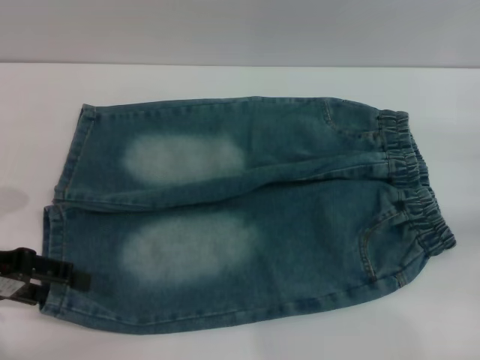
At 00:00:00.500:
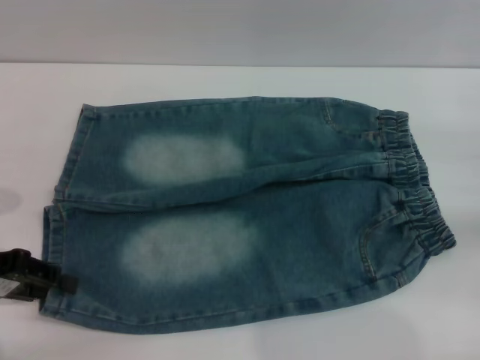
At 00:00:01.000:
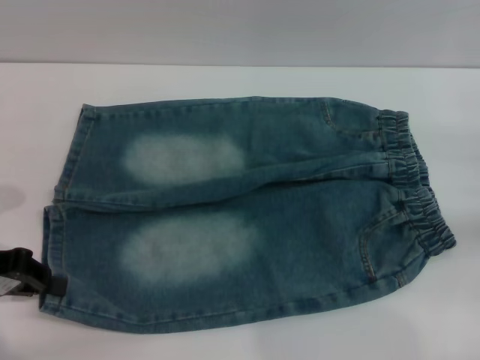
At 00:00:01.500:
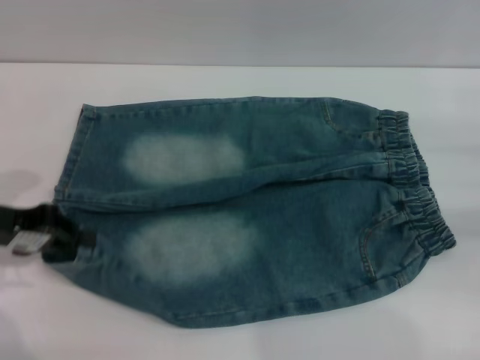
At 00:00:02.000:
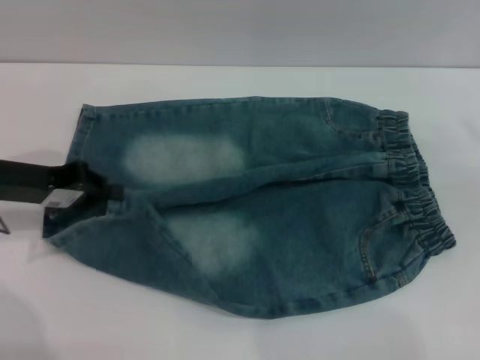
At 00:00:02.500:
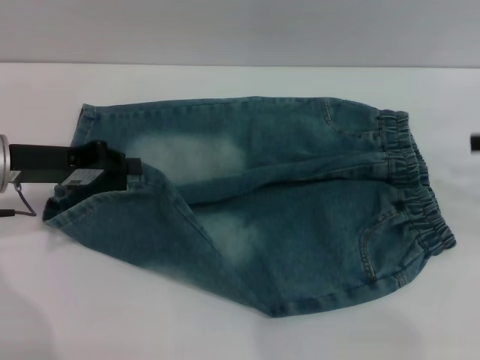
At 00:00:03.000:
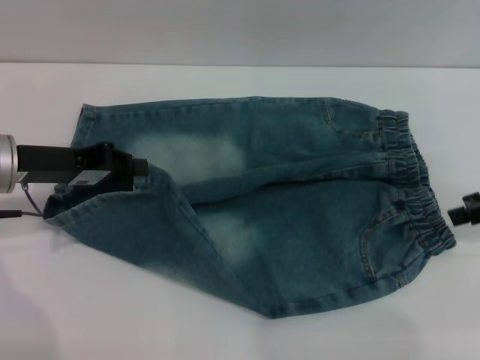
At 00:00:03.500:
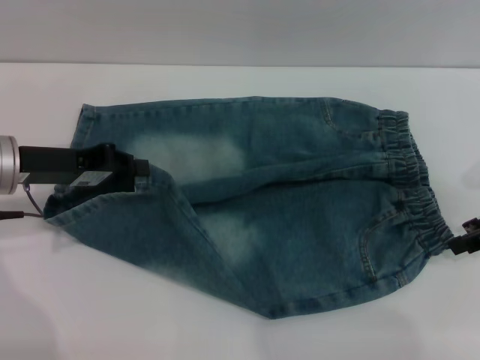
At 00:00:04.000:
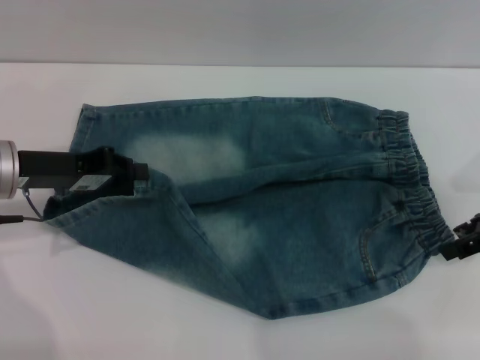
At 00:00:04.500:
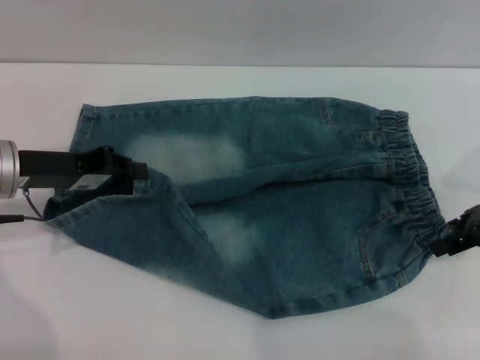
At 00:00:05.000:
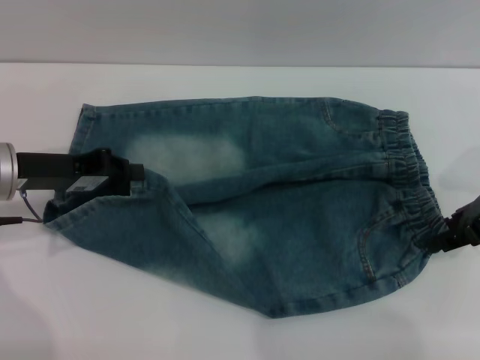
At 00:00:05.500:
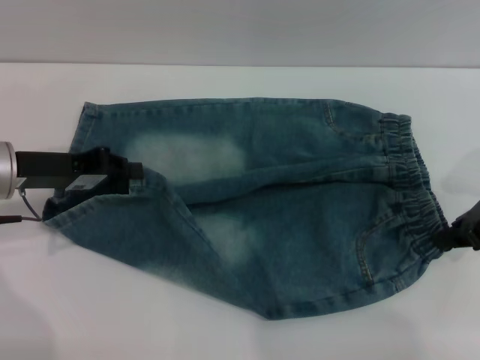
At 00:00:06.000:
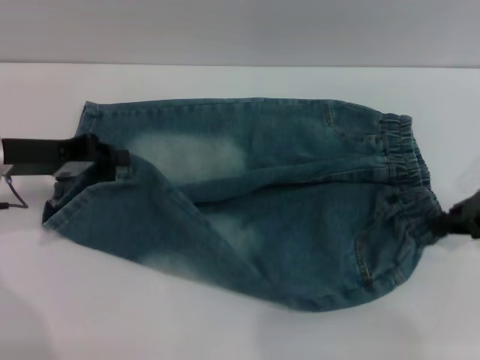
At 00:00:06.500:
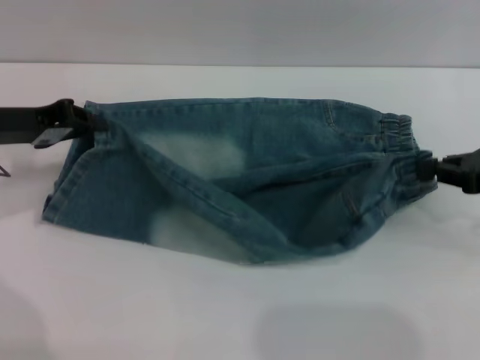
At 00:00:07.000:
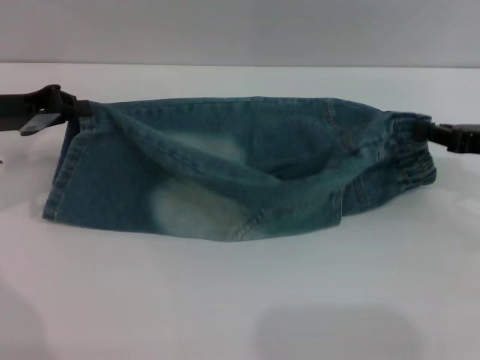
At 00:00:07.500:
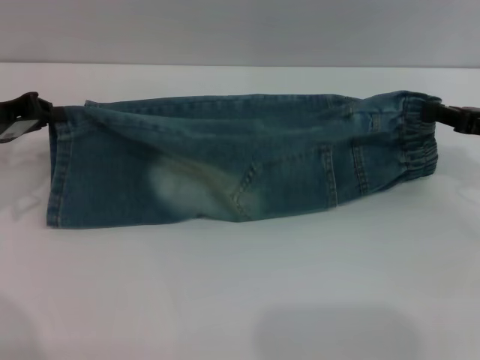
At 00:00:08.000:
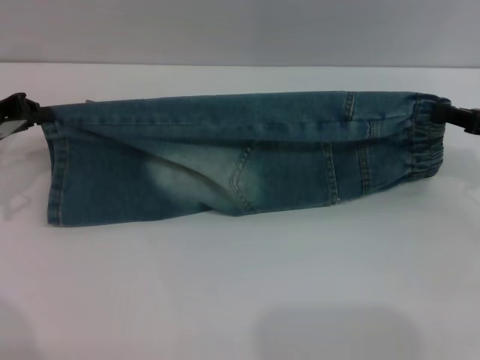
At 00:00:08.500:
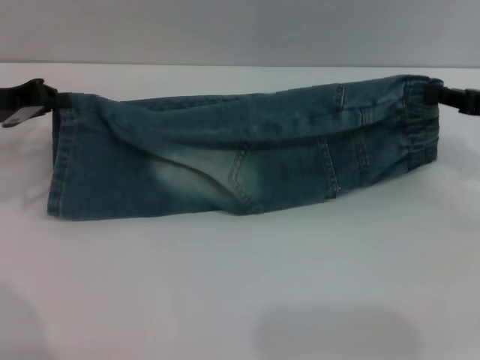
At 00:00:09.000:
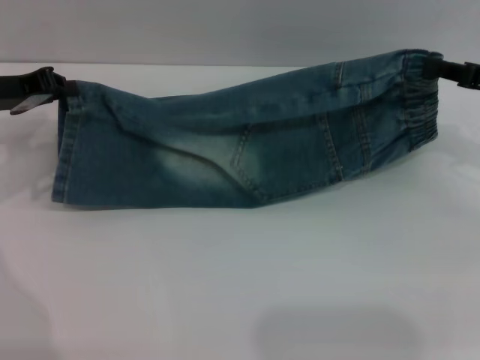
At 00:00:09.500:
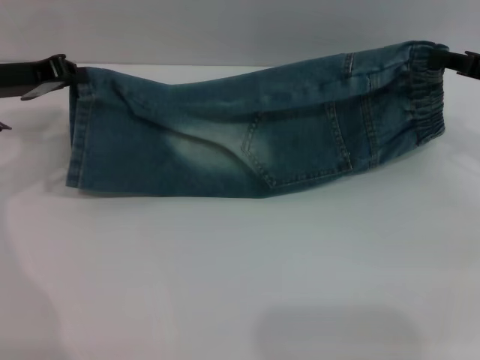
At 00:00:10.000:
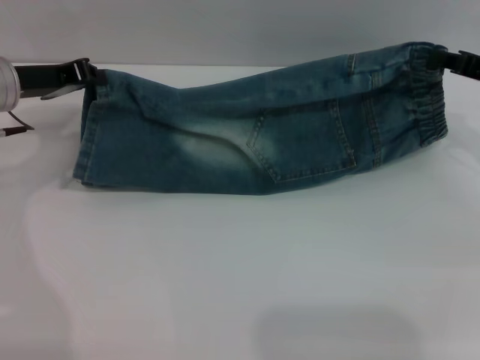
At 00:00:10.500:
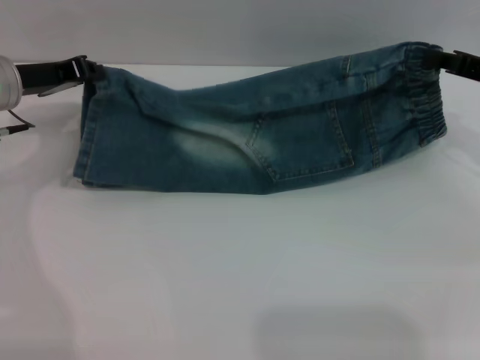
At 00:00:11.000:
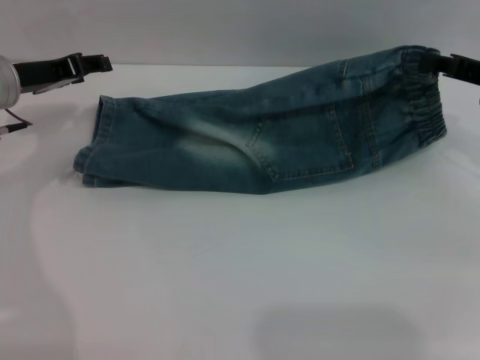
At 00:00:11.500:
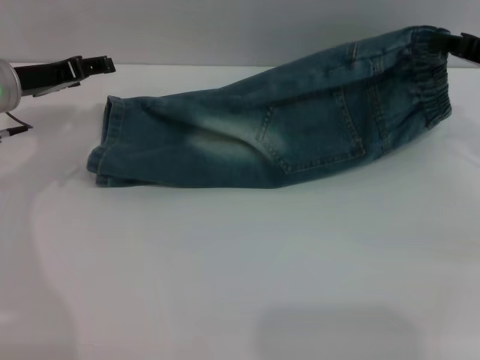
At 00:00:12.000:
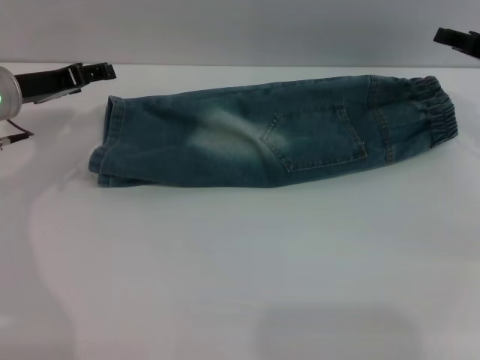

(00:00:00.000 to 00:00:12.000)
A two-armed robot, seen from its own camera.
Step, 00:00:00.000 - 00:00:10.500: Fold the bottom of the pants upward with both grippers.
00:00:00.000 - 00:00:02.000: The right gripper moves upward, about 10 cm. The left gripper travels forward by some 5 cm, and closes its fingers.
00:00:02.000 - 00:00:04.000: The right gripper heads to the left, covering about 10 cm.
00:00:04.000 - 00:00:06.000: The right gripper closes.
00:00:06.000 - 00:00:08.000: The left gripper heads to the left, covering roughly 5 cm.
00:00:08.000 - 00:00:10.000: The right gripper shifts by approximately 5 cm. Meanwhile the left gripper goes about 5 cm to the right.
00:00:10.000 - 00:00:12.000: The left gripper opens up.

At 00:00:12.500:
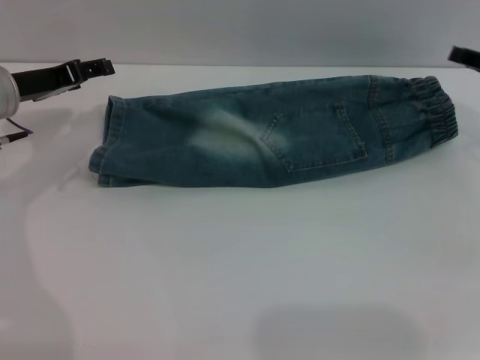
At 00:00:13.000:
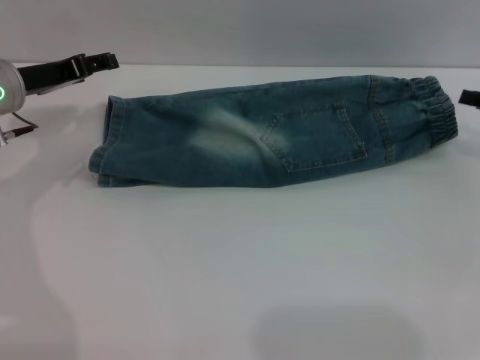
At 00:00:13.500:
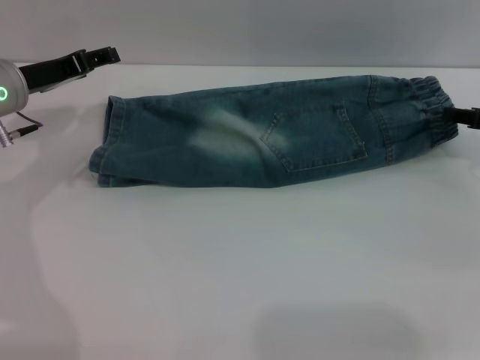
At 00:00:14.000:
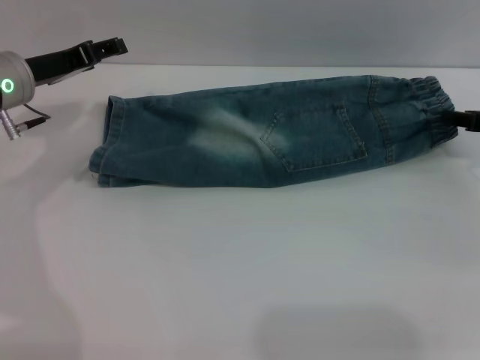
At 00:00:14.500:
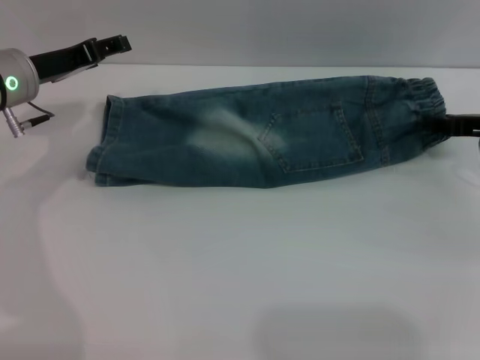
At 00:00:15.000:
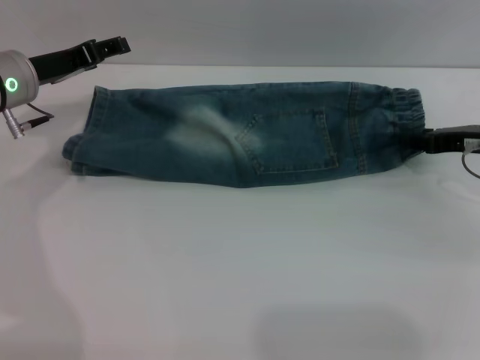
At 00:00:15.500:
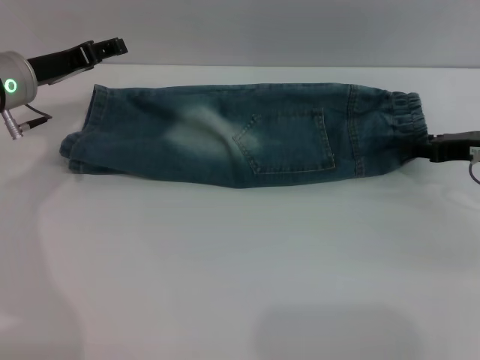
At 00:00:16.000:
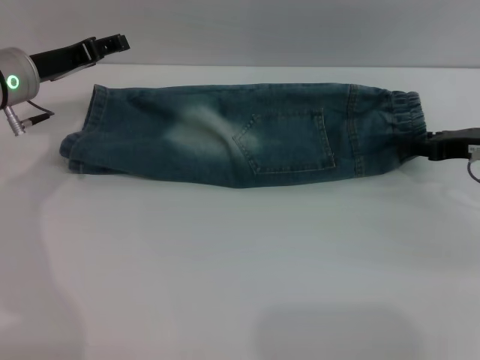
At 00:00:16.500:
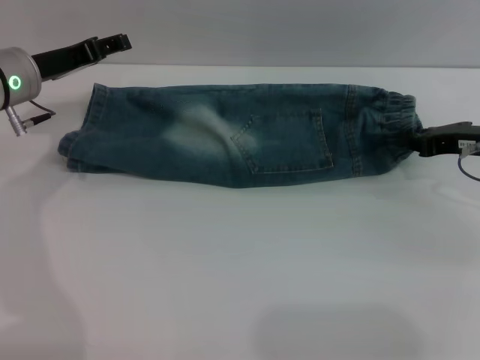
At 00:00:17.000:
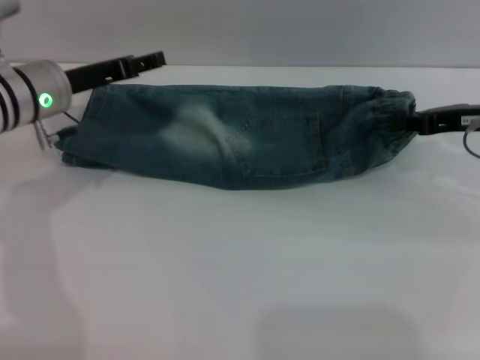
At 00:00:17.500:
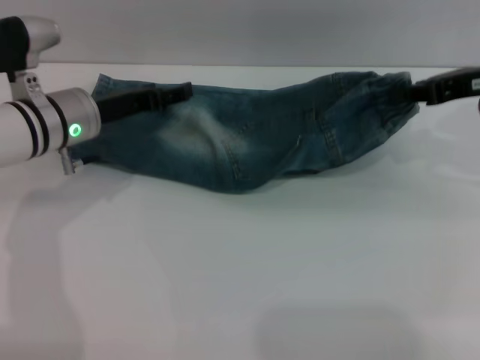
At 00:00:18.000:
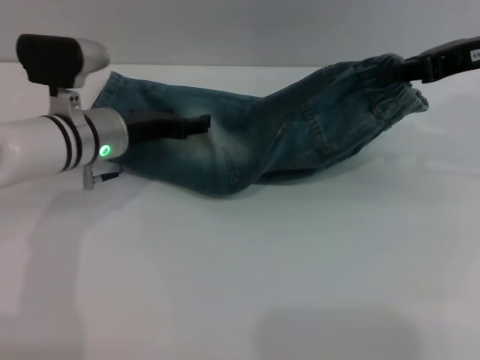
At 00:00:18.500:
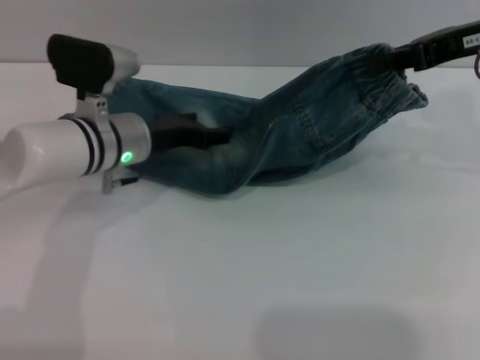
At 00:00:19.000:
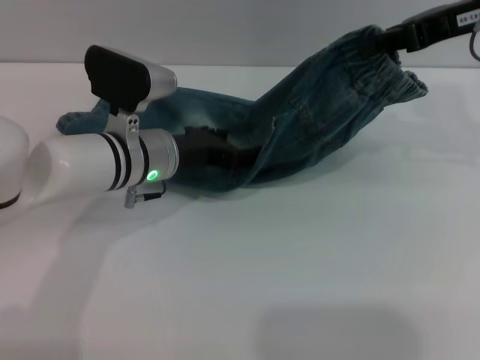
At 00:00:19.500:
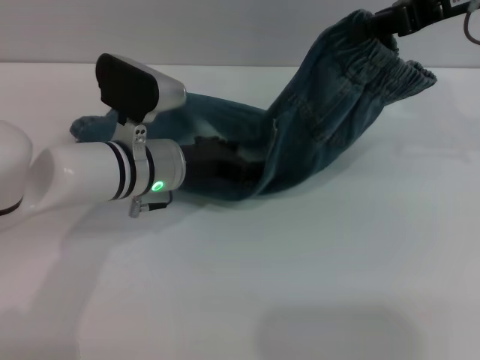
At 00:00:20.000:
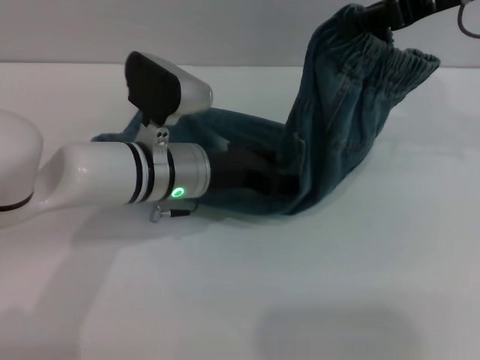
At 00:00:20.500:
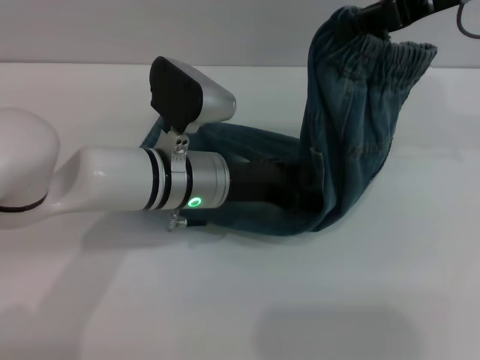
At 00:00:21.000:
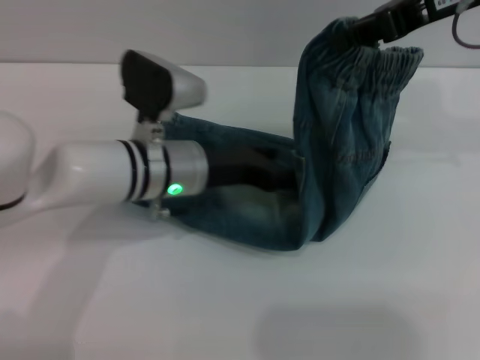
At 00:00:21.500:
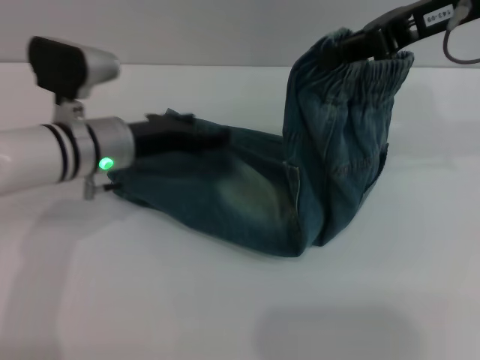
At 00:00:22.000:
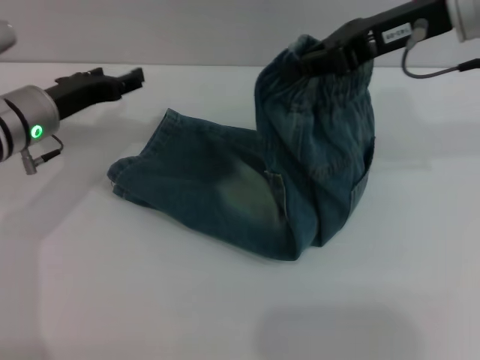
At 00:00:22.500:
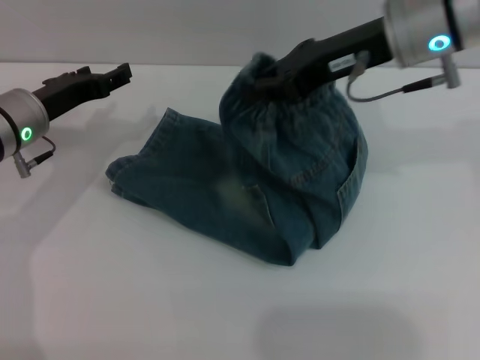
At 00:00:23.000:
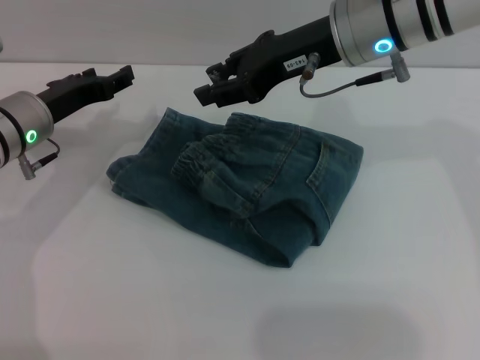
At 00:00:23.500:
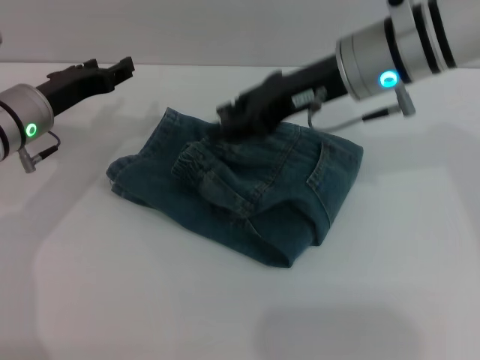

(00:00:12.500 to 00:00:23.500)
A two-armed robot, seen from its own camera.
Step, 00:00:12.500 - 00:00:23.000: Fold the pants from right to left with the right gripper.
00:00:14.500 - 00:00:16.000: The grippers stay close to where they were, moving slightly.
00:00:16.000 - 00:00:18.000: The left gripper heads to the right and downward, covering roughly 10 cm, while the right gripper moves upward, approximately 15 cm, and closes.
00:00:18.000 - 00:00:20.000: The left gripper heads to the right, covering approximately 10 cm; the right gripper shifts roughly 5 cm upward.
00:00:20.000 - 00:00:21.500: The left gripper shifts roughly 5 cm to the left.
00:00:21.500 - 00:00:23.500: The right gripper shifts roughly 10 cm to the left and downward, and opens up, while the left gripper is displaced to the left by about 5 cm.

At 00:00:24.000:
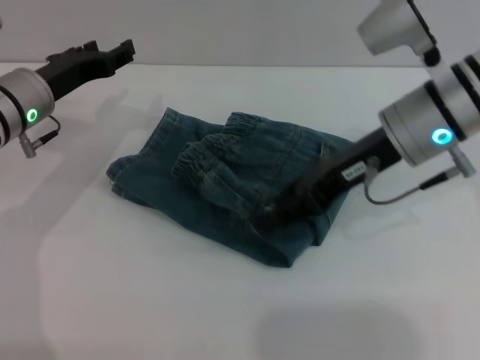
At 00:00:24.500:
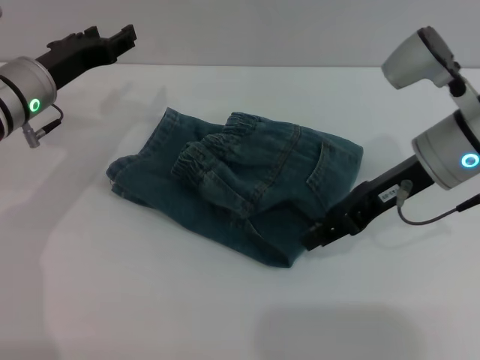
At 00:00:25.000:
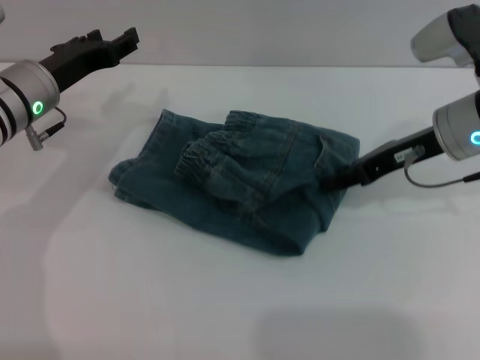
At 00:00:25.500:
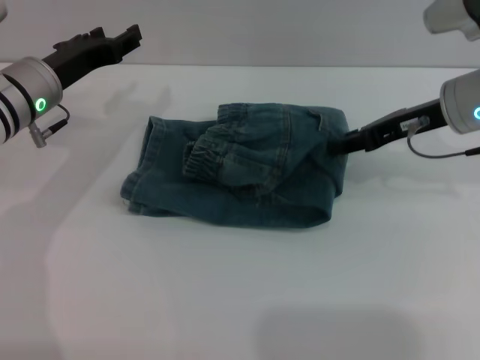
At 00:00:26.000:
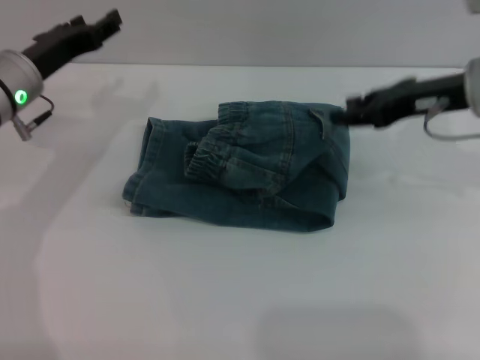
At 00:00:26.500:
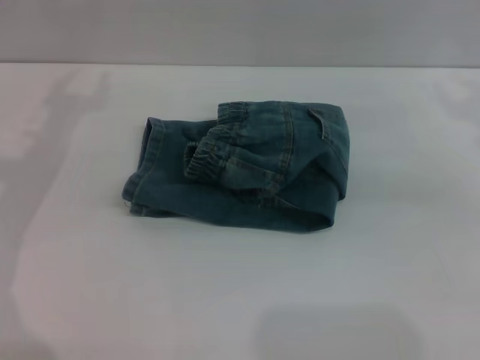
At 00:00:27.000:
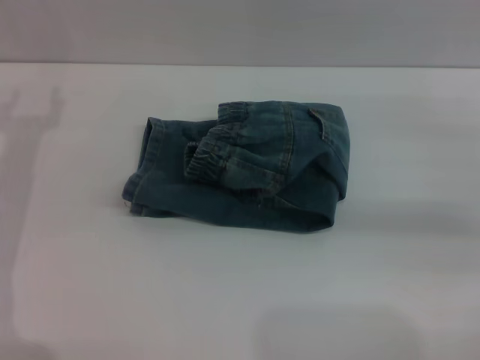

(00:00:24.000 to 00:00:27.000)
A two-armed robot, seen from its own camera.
Step, 00:00:24.000 - 00:00:25.500: Place the folded trousers onto the center area with the right grippers.
00:00:24.000 - 00:00:25.500: The right gripper travels to the right by about 5 cm.
00:00:25.500 - 00:00:27.000: The right gripper heads to the right and backward, covering roughly 15 cm. The left gripper is displaced to the left and backward by roughly 10 cm.
